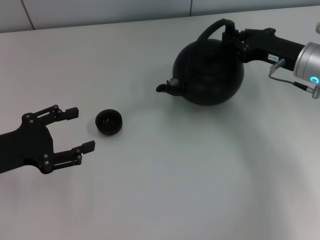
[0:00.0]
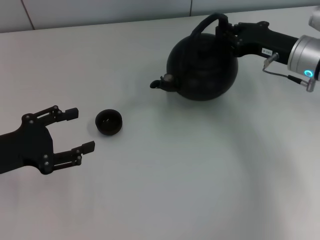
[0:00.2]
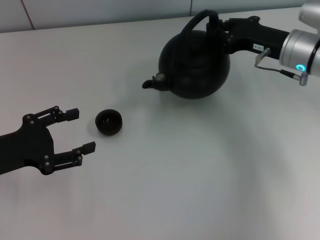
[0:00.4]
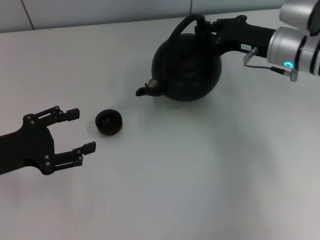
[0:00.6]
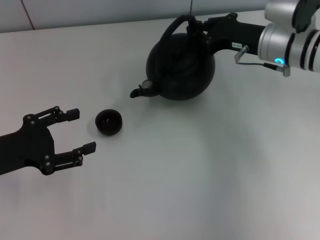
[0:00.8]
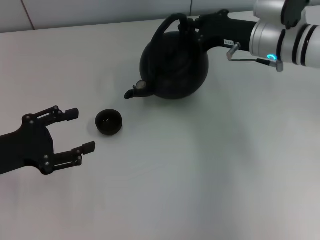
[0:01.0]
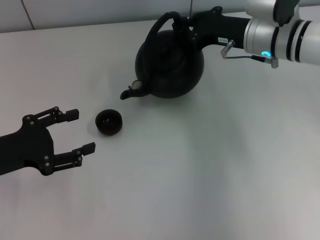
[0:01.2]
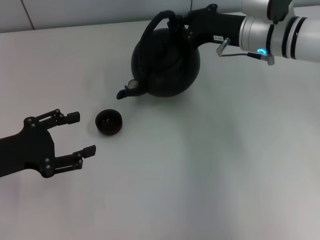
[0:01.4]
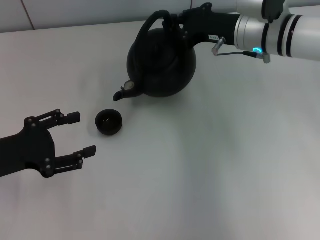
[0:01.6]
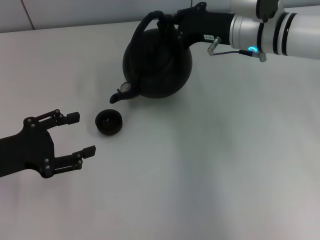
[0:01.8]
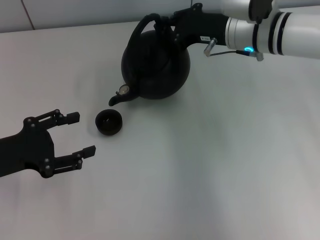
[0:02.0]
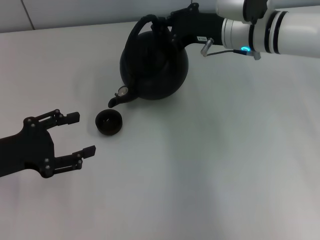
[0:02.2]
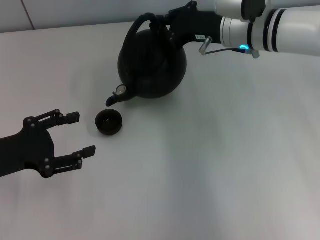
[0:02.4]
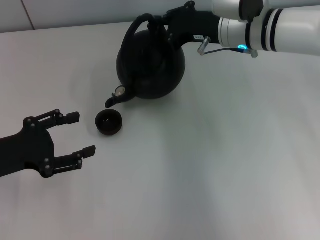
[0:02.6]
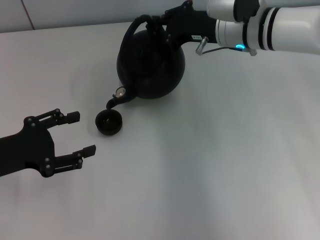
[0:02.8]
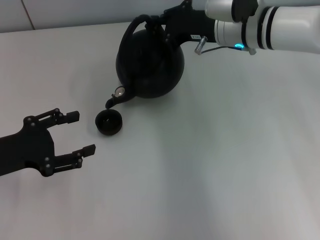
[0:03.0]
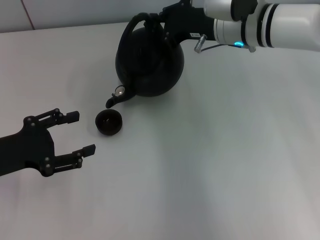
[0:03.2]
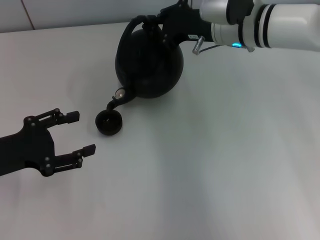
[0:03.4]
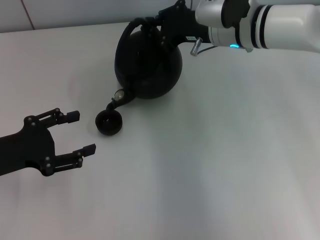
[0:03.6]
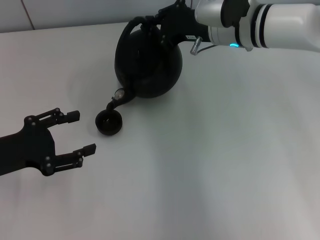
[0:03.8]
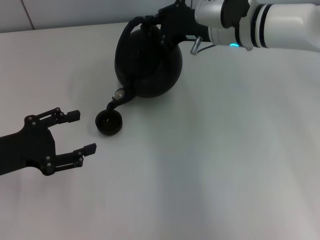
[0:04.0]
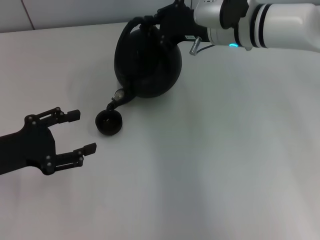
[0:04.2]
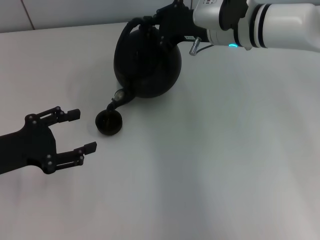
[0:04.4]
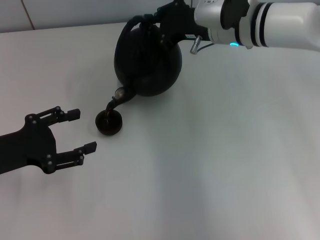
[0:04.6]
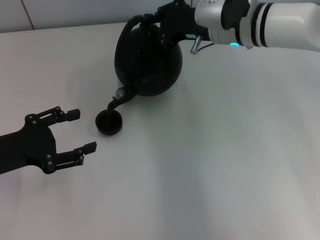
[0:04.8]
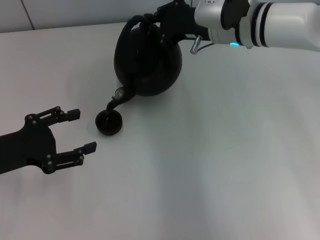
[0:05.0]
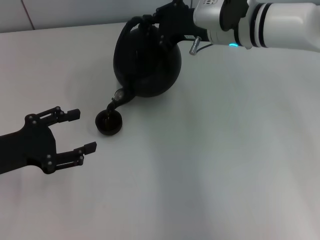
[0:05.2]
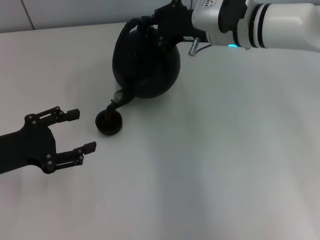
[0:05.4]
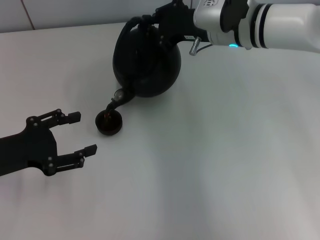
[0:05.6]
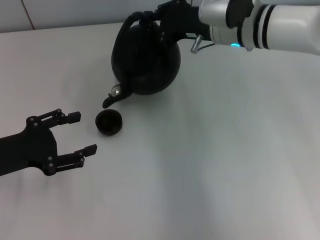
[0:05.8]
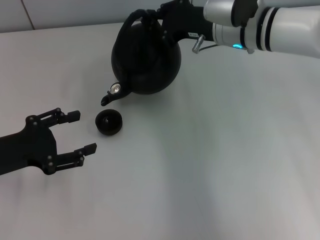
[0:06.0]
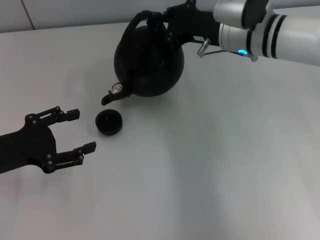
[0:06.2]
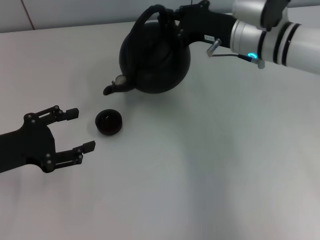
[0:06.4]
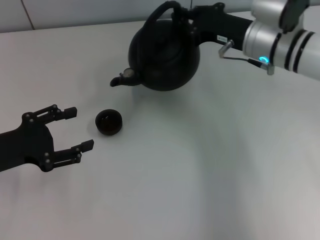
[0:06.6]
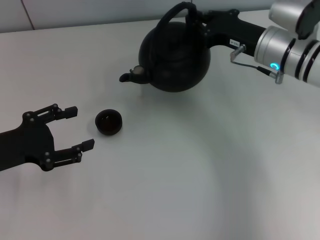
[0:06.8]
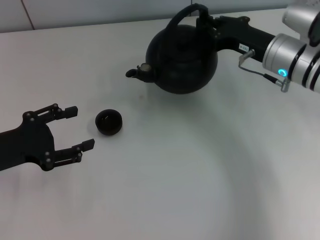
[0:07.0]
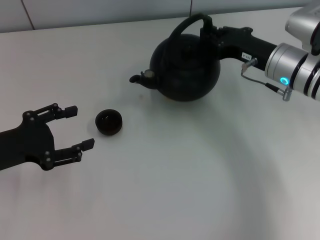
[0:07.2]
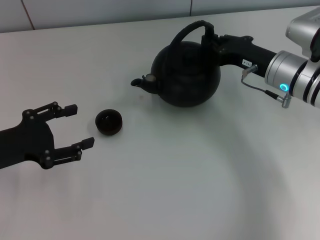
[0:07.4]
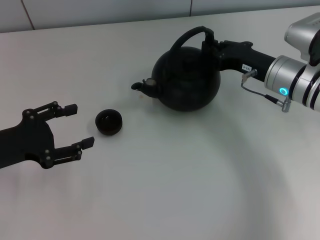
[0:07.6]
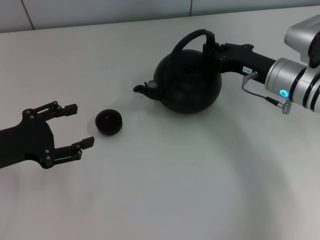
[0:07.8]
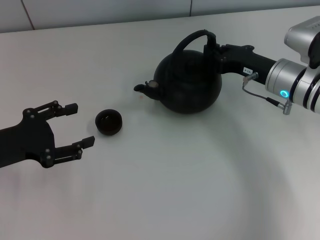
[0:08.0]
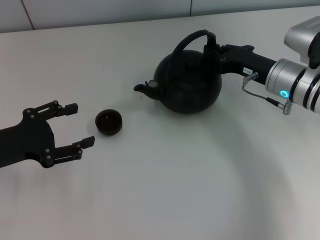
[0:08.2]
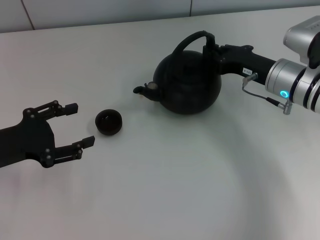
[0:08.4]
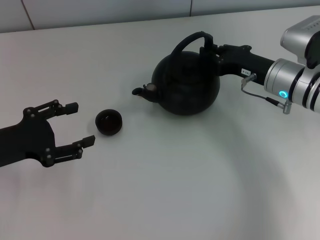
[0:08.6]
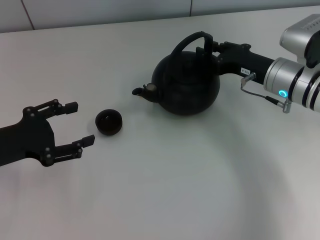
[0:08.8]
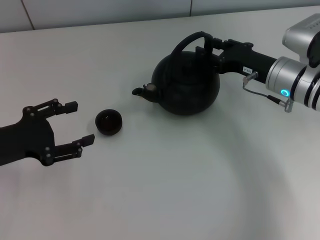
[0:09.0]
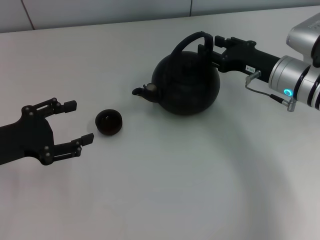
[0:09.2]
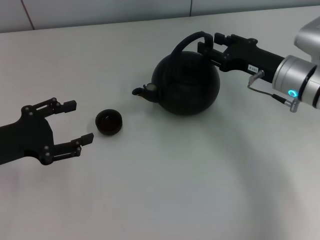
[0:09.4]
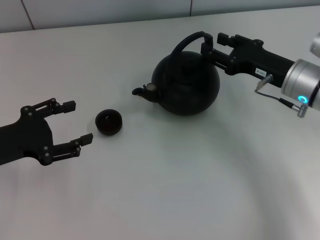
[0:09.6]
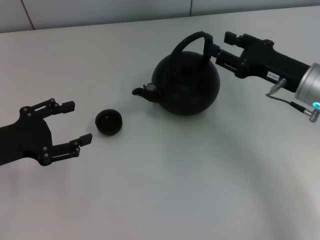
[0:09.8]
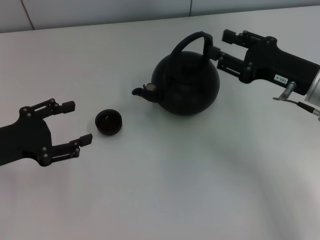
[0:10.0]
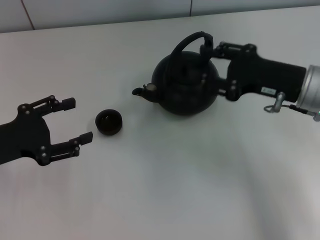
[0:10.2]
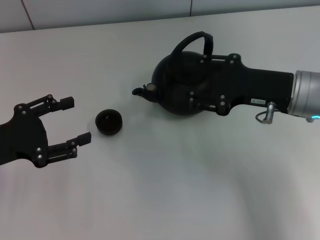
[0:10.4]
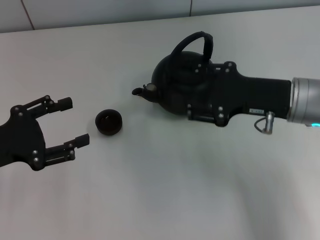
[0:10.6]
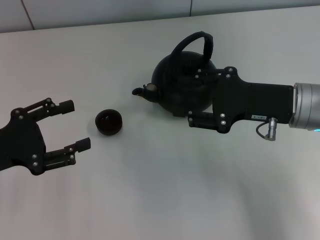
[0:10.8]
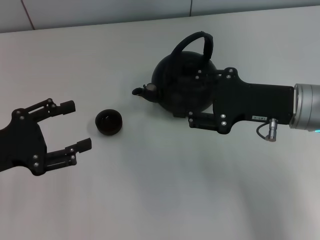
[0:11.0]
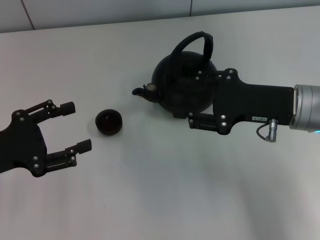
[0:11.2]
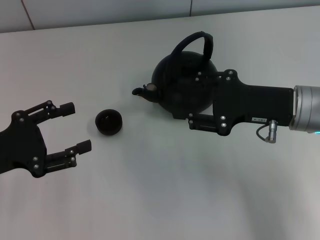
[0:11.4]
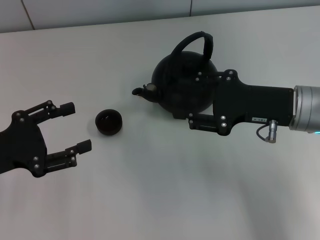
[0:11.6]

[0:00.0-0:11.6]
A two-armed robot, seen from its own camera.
Task of the whole recording: Grasp the handle of the teapot with one hand and pour tea into the teacup.
Step, 0:07.0 to 0:09.8: Put down the teapot with the right gripper.
0:00.0 to 0:01.4: The right gripper goes roughly 10 cm to the left.
0:01.4 to 0:04.4: The grippers make only small movements.
0:04.4 to 0:05.8: The two grippers keep their place.
0:05.8 to 0:07.2: The right gripper shifts roughly 10 cm to the right, downward and backward.
0:07.2 to 0:08.8: The grippers move only a little.
0:08.8 to 0:10.2: The right gripper shifts about 10 cm backward and upward, and opens.
0:10.2 to 0:11.6: The grippers make only small movements.

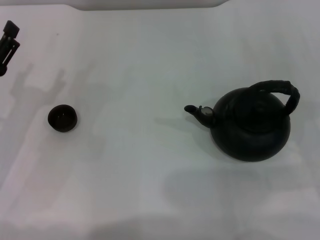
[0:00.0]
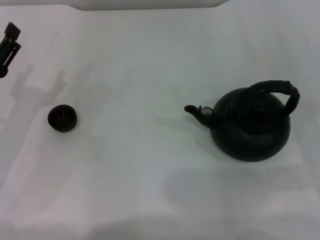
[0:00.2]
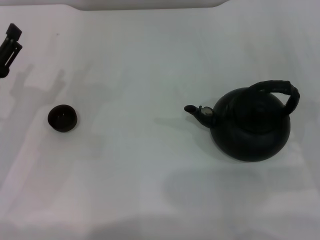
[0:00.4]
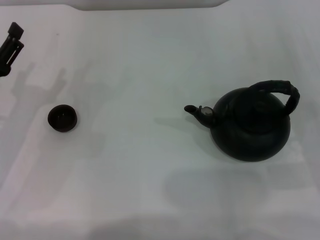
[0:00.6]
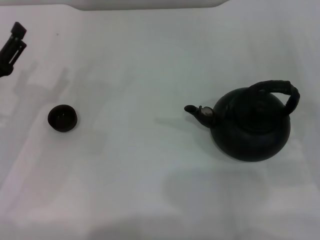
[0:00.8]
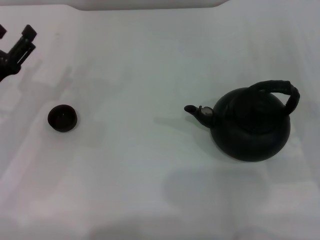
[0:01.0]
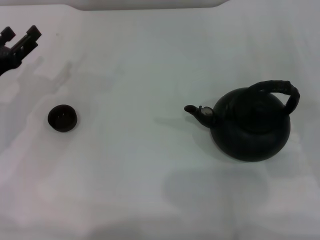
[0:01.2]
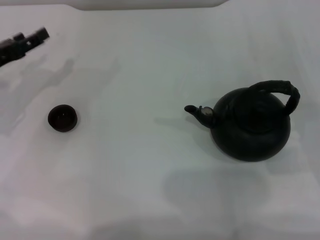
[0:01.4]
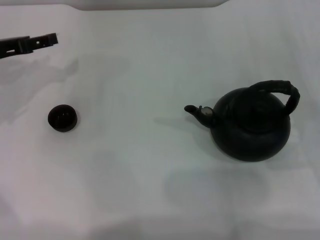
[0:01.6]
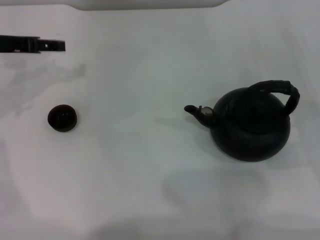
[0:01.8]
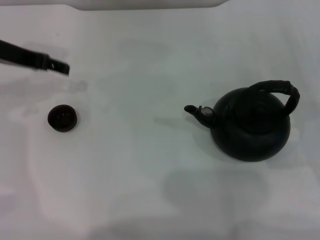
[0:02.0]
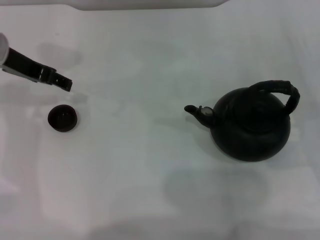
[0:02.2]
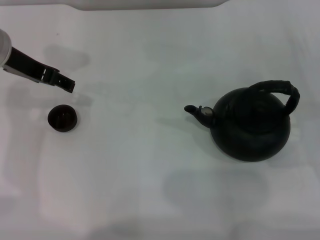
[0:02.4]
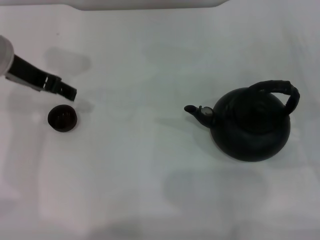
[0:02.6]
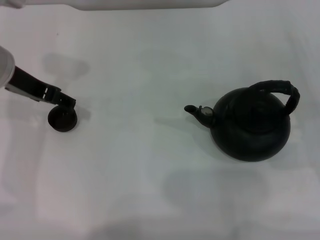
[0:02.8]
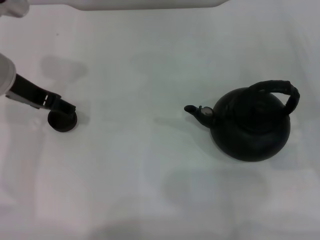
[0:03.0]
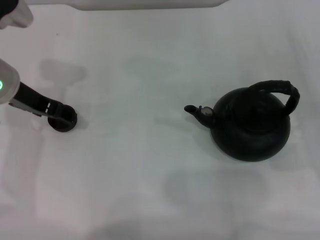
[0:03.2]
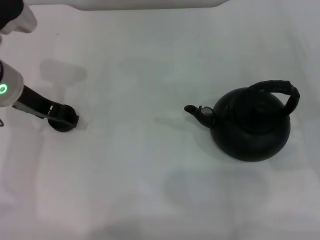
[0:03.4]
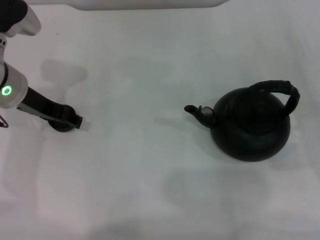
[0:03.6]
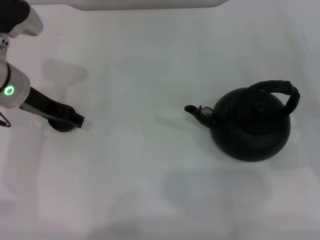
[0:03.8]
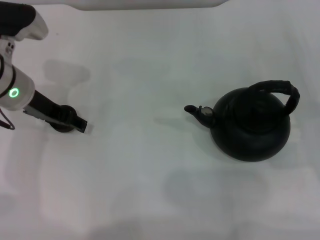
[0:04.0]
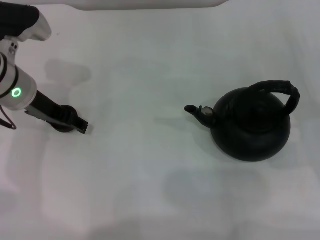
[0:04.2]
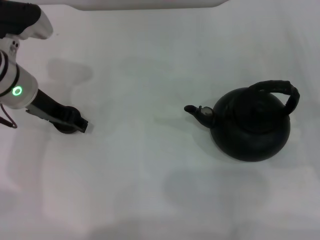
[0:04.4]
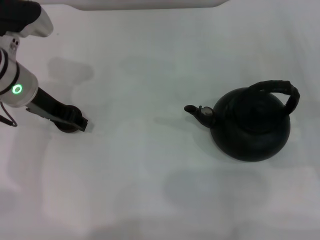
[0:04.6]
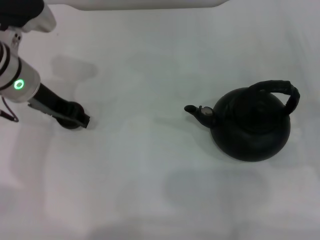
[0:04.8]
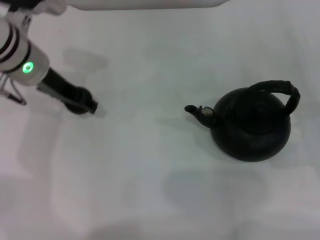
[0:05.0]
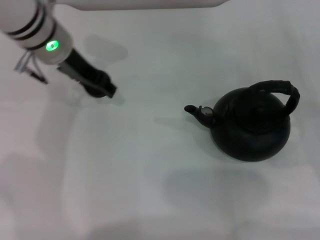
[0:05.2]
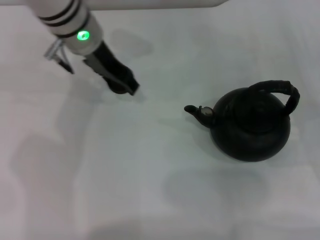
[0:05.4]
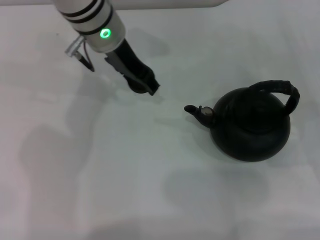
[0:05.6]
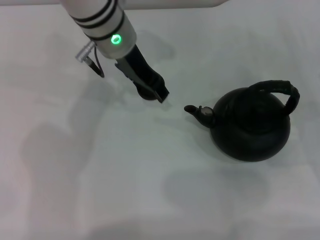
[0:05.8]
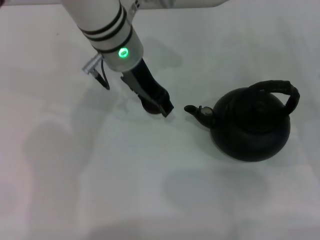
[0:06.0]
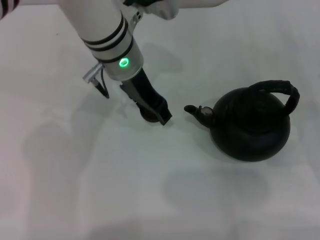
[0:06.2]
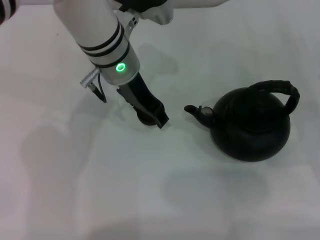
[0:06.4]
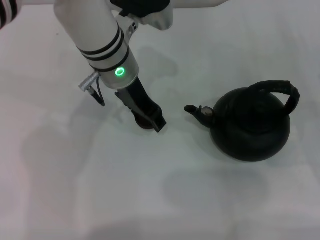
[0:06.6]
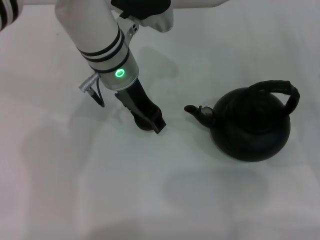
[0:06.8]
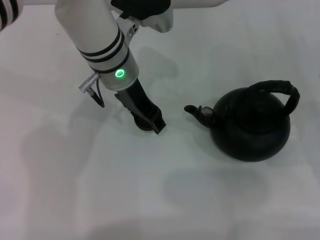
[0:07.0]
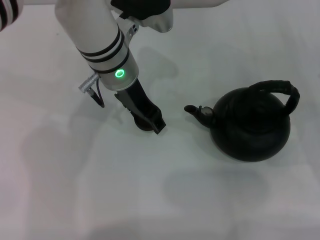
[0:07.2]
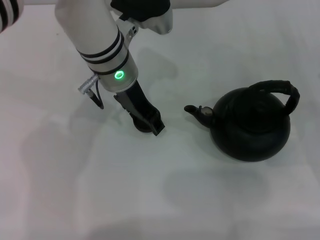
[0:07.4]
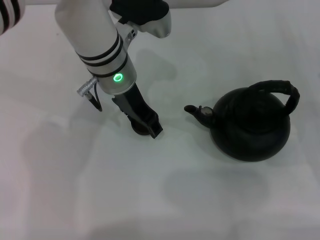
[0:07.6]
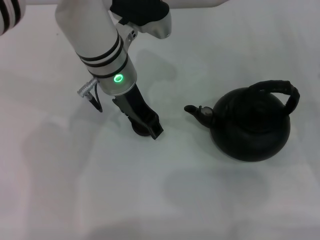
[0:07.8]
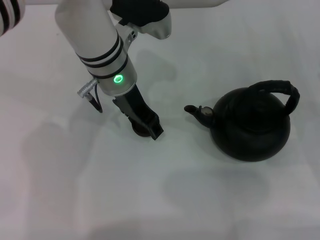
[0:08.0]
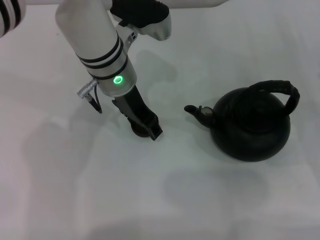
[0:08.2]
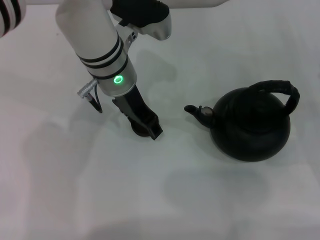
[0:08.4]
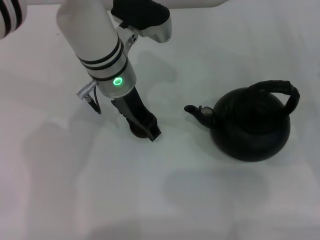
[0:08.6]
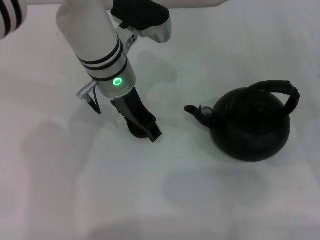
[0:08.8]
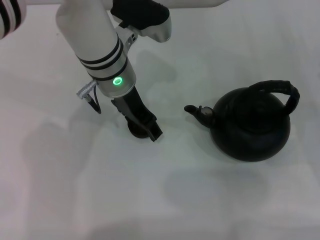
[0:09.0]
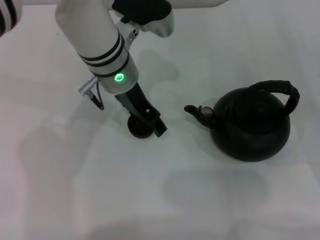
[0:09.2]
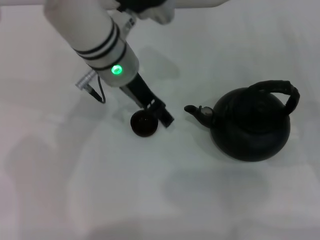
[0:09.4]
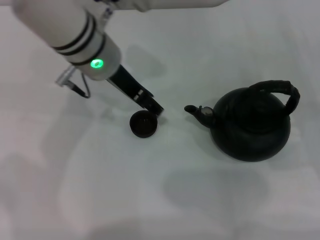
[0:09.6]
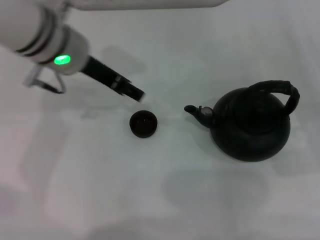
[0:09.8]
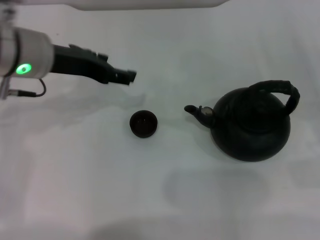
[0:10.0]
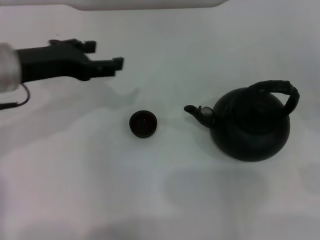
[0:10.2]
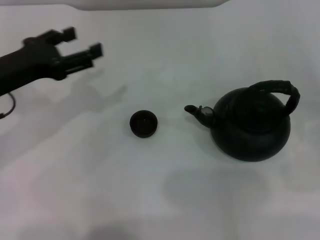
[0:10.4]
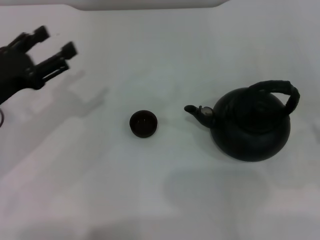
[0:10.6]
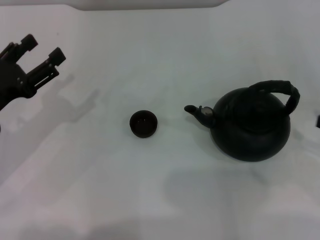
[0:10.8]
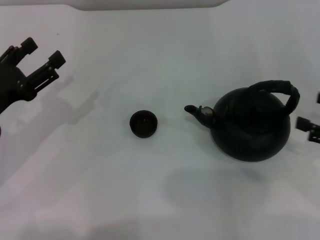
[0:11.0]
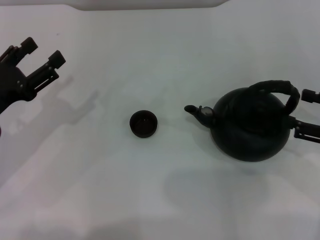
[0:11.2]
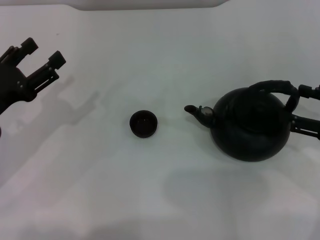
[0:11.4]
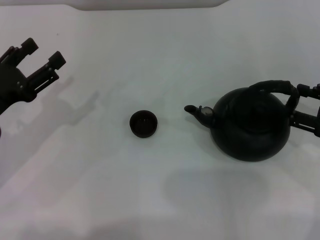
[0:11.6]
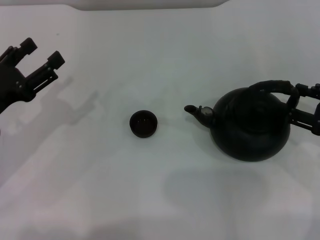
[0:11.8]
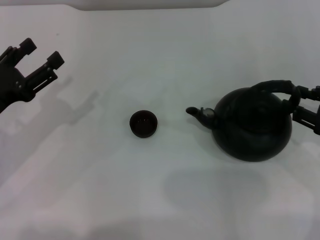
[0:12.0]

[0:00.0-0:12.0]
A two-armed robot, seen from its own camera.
Task of the whole recording: Grasp the handle of the teapot with one hand and pour tea into the teacup.
Step, 0:00.0 to 0:04.8: Pick up the teacup with the left gripper.
Step, 0:05.2 to 0:09.6: Place the teacup in the center of view with the left gripper.
0:00.0 to 0:01.6: The left gripper travels forward and upward by some 15 cm.
0:01.6 to 0:03.0: The left gripper heads to the right, covering about 10 cm.
0:03.0 to 0:04.4: The grippers make only small movements.
0:04.4 to 0:06.0: The left gripper heads to the right, covering roughly 15 cm, and closes.
0:06.0 to 0:07.6: The grippers make only small movements.
0:07.6 to 0:09.0: The left gripper opens up.
0:09.0 to 0:10.4: The left gripper goes roughly 20 cm to the left and backward, and opens its fingers. Meanwhile the right gripper moves backward and to the right, approximately 10 cm.
0:10.4 to 0:12.0: The right gripper is displaced to the left and forward by some 10 cm, while the left gripper heads downward, covering roughly 5 cm.
